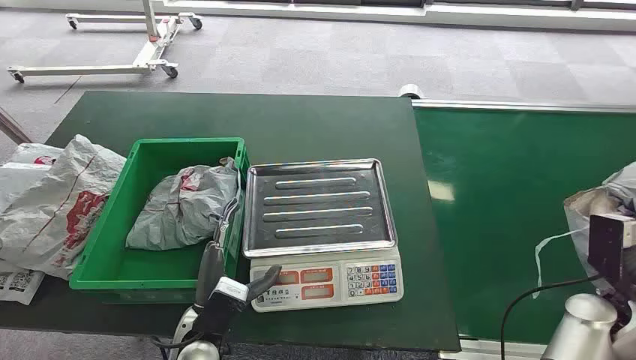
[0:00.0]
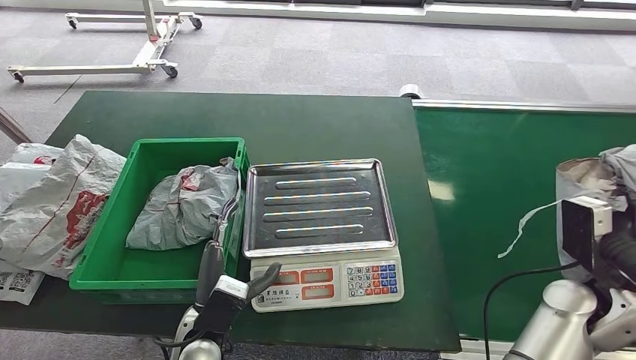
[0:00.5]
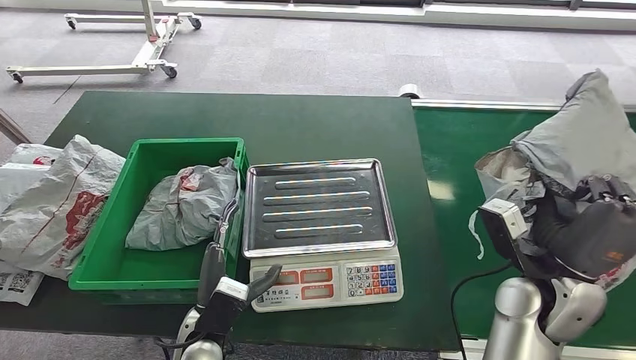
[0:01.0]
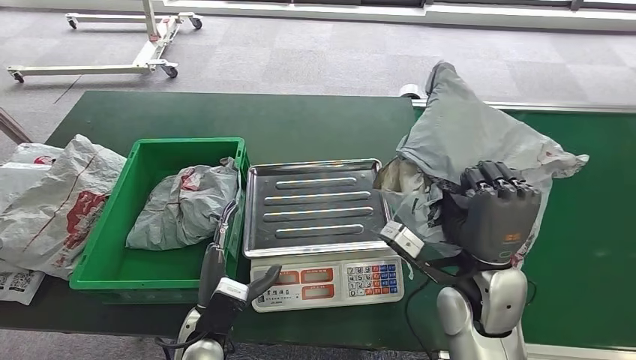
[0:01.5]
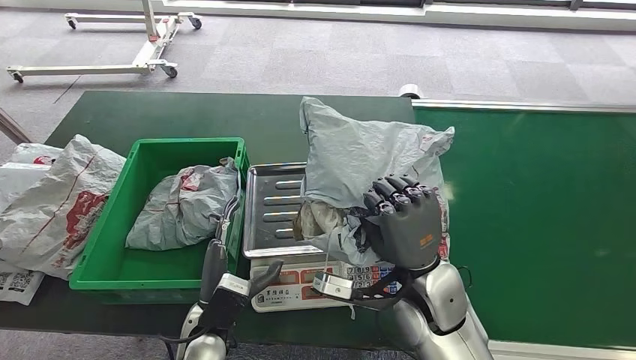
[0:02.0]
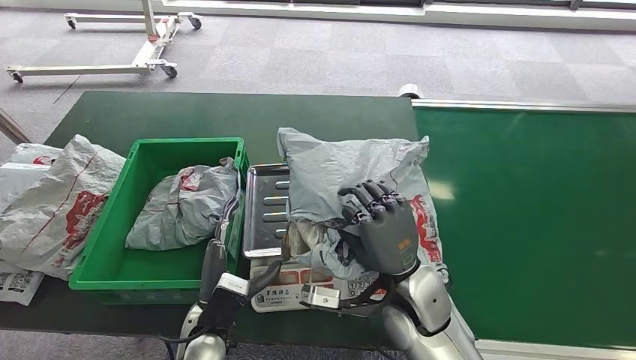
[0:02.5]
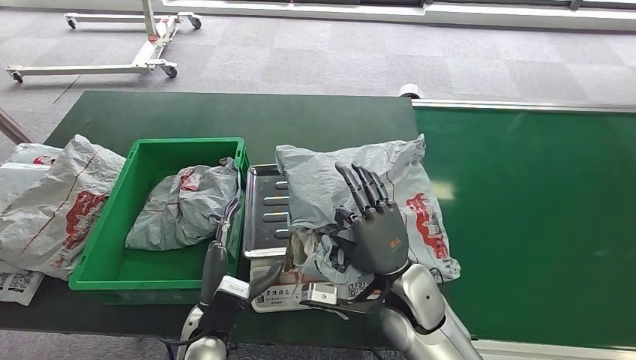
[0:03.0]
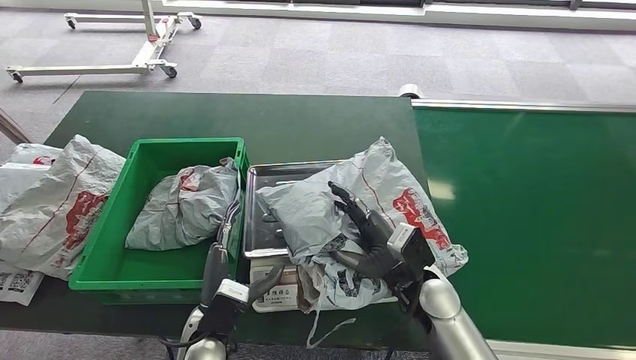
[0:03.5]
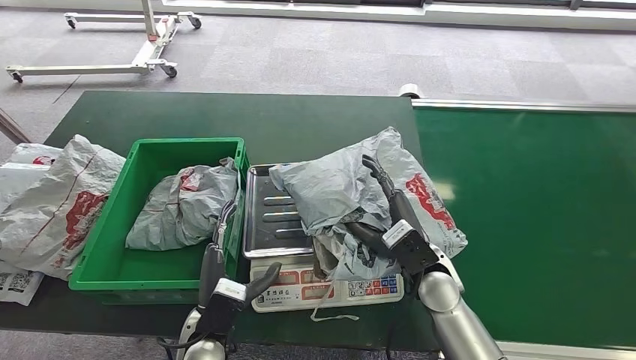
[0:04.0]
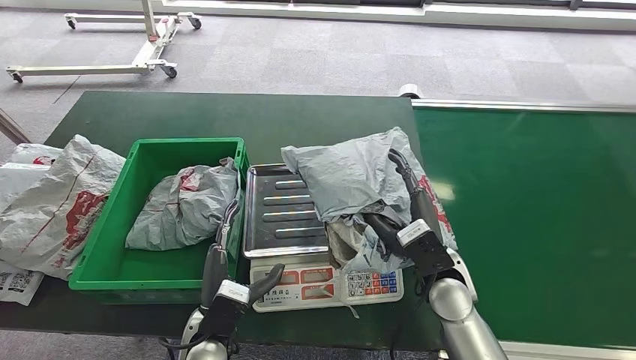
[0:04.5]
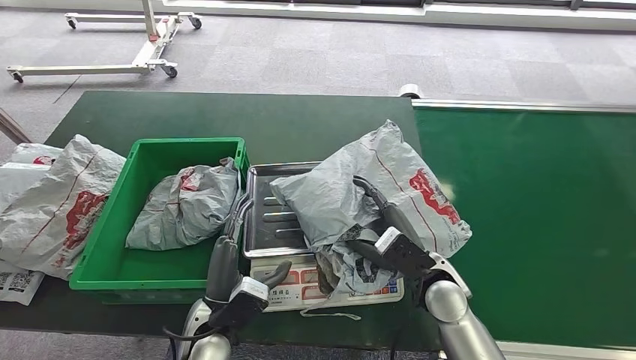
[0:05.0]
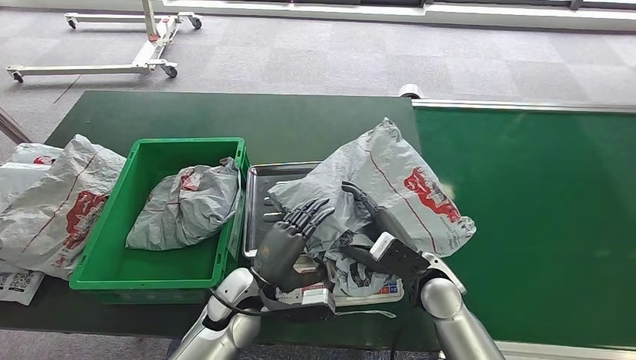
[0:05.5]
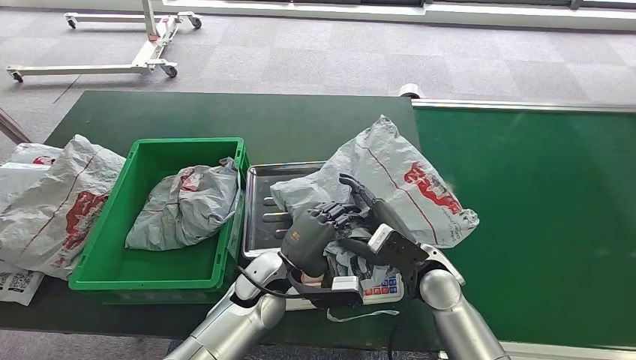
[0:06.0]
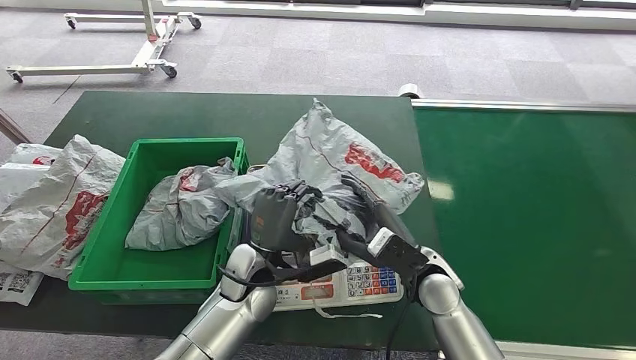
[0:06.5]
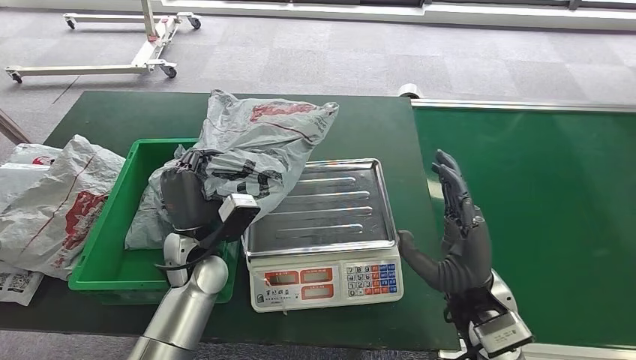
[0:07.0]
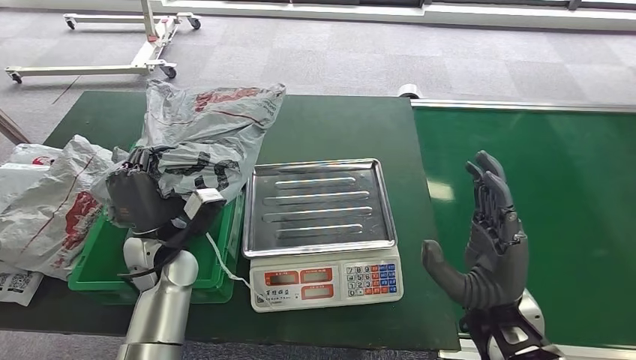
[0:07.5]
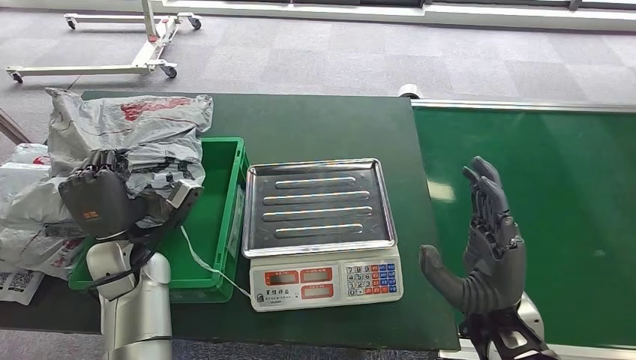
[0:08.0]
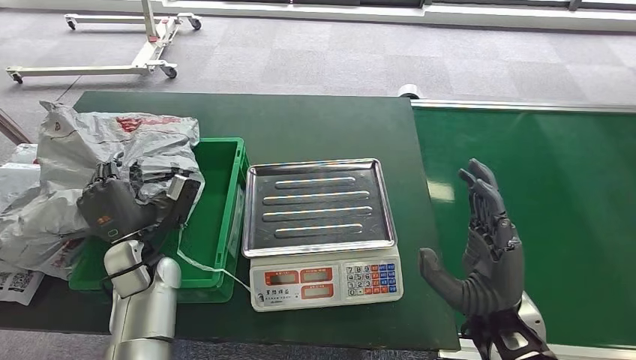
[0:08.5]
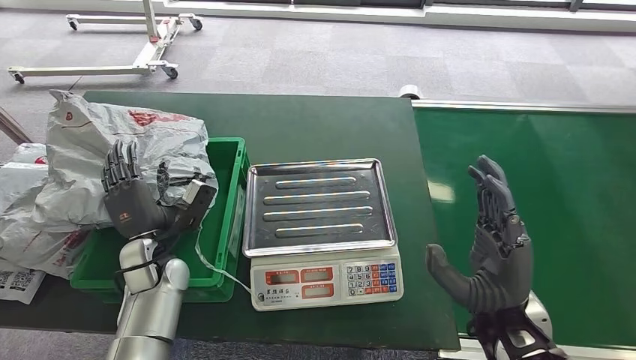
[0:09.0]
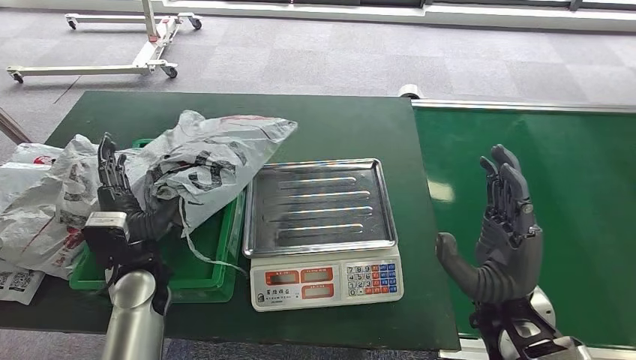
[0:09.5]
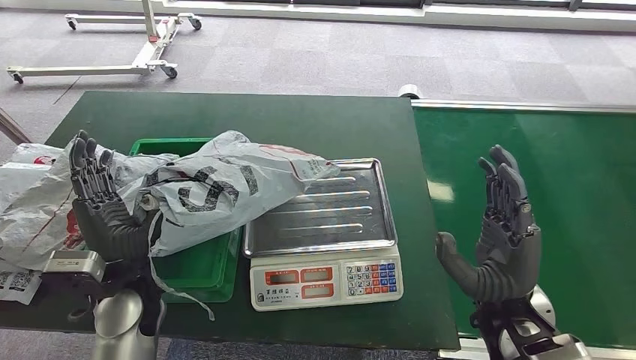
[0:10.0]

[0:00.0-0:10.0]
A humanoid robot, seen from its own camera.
Step, 0:00.0 to 0:00.5: Pick up the package from the conveyor belt.
Step, 0:01.5 to 0:06.5: Place the package onto the inbound machine.
Step, 0:07.0 to 0:08.0: Pick up the package from the inbound machine.
0:02.0 to 0:04.0: The right hand is displaced downward by approximately 5 cm.
0:04.0 to 0:06.0: The left hand heads forward and to the right, covering about 10 cm.

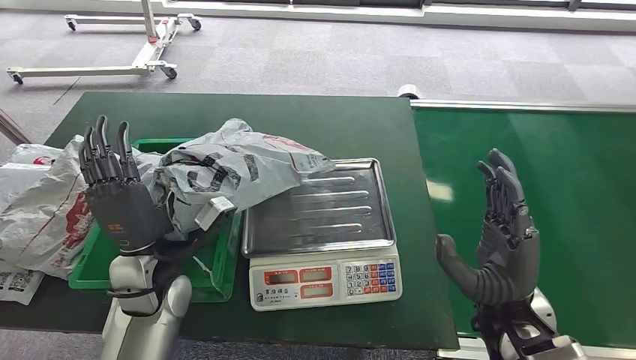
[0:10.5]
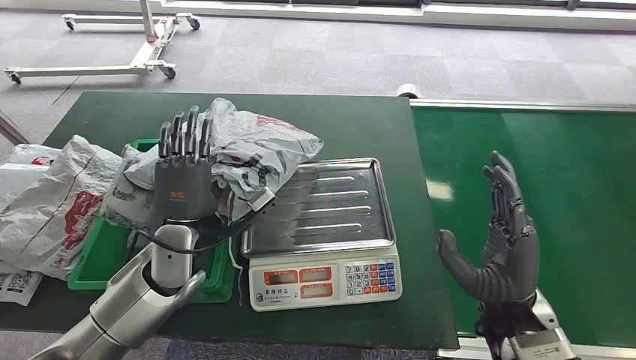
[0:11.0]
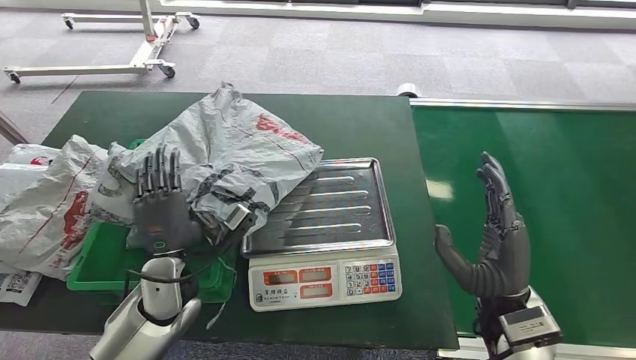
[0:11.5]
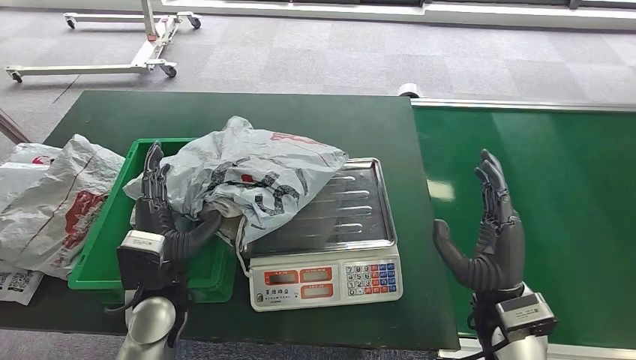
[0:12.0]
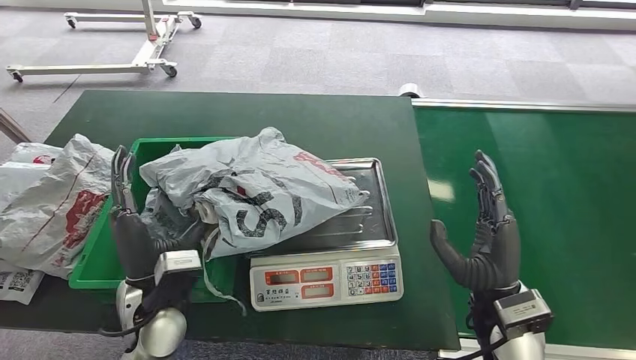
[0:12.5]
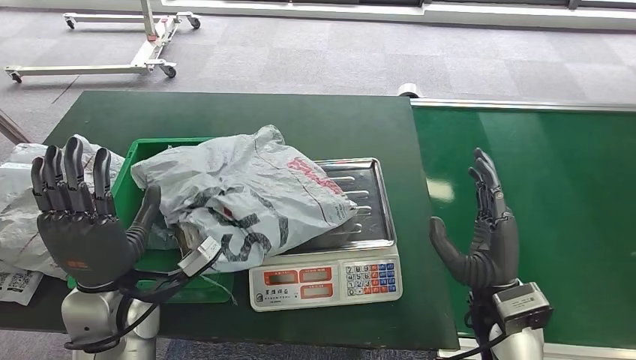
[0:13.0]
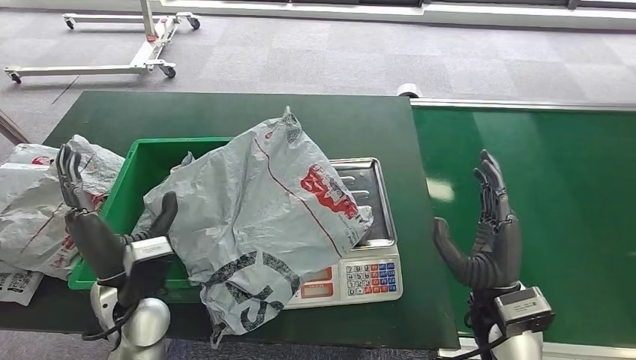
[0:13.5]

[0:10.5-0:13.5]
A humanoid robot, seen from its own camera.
Step, 0:10.5 to 0:13.5: Place the package into the parcel locker.
